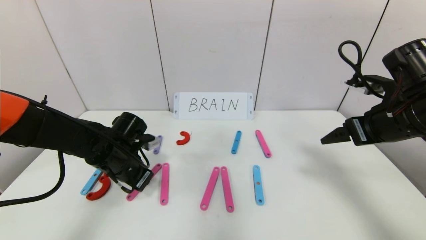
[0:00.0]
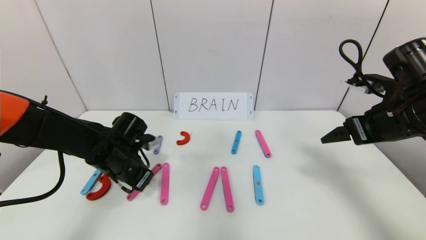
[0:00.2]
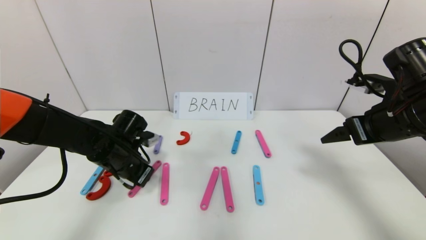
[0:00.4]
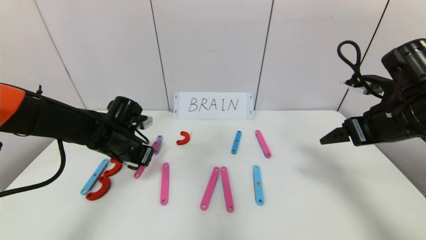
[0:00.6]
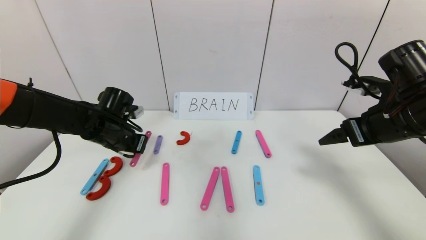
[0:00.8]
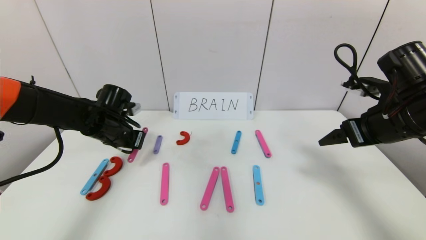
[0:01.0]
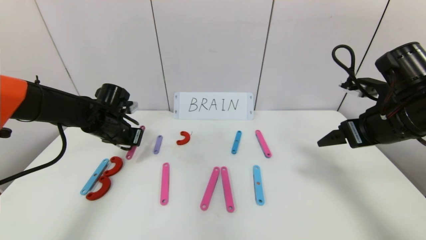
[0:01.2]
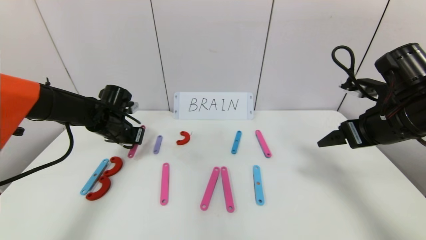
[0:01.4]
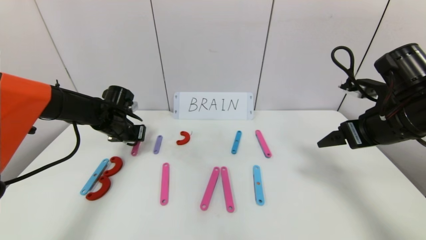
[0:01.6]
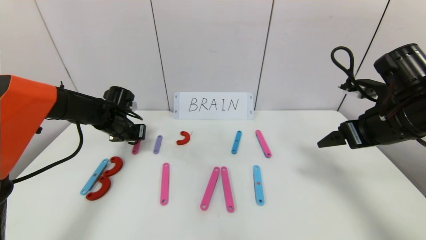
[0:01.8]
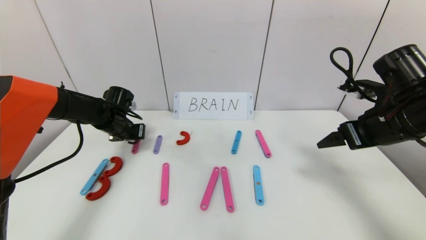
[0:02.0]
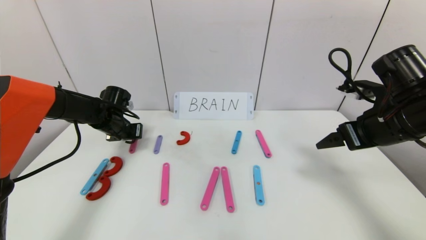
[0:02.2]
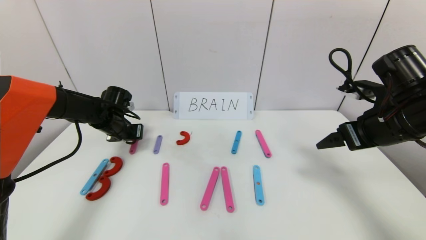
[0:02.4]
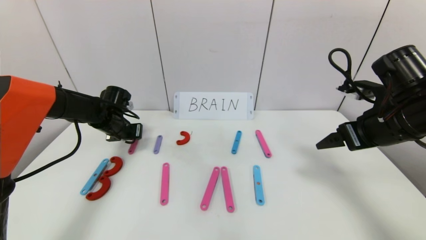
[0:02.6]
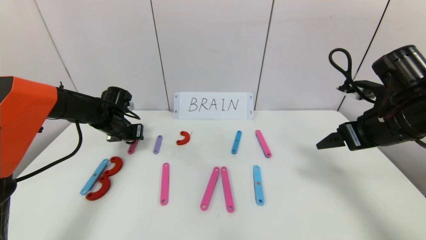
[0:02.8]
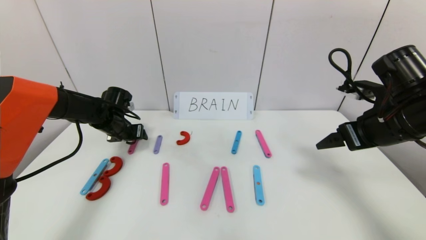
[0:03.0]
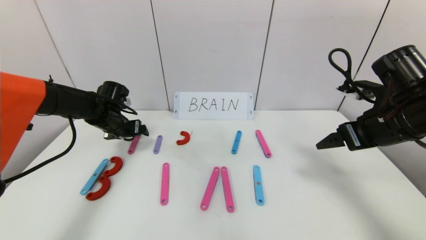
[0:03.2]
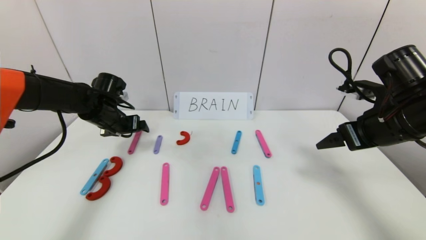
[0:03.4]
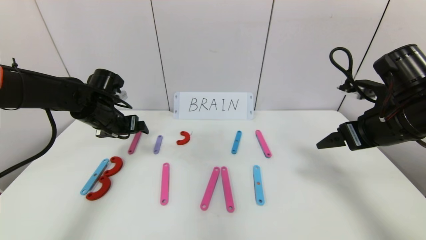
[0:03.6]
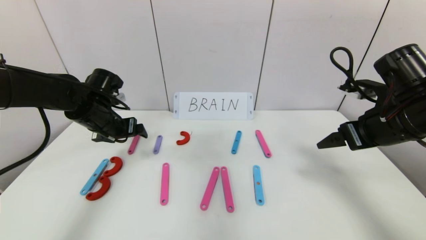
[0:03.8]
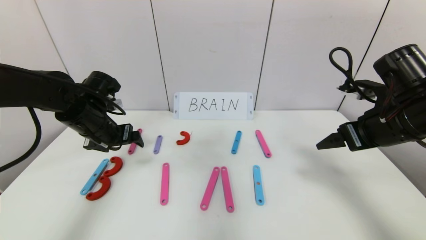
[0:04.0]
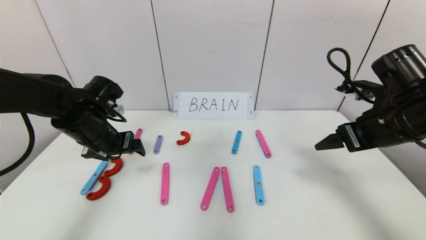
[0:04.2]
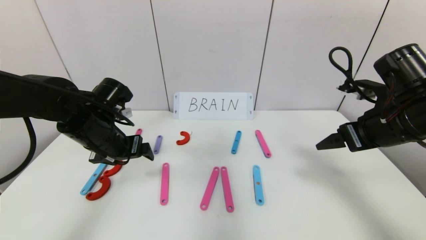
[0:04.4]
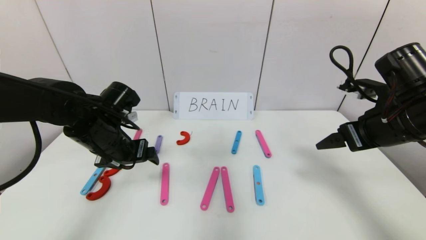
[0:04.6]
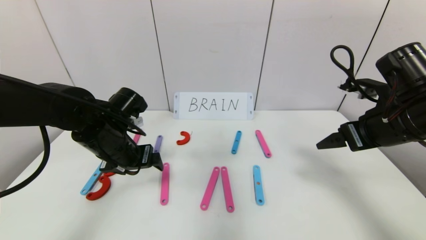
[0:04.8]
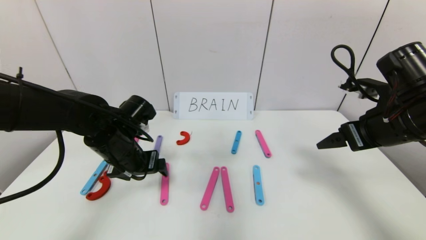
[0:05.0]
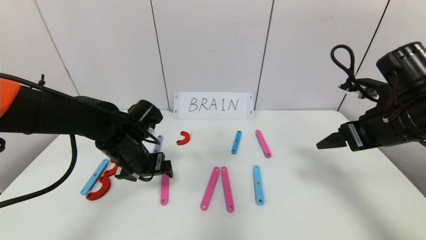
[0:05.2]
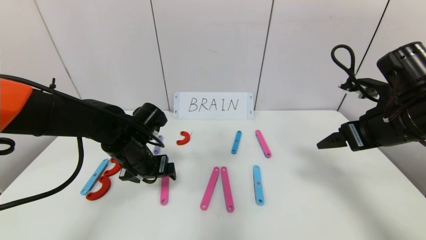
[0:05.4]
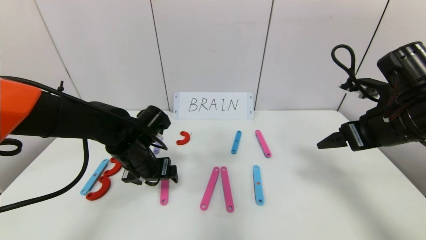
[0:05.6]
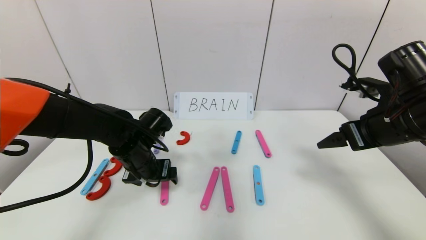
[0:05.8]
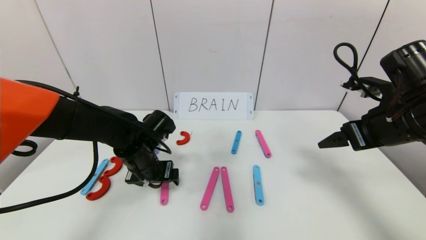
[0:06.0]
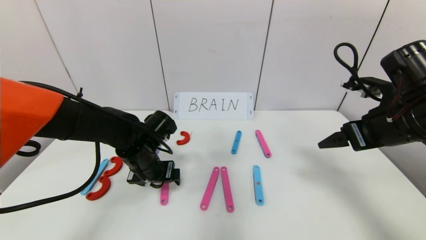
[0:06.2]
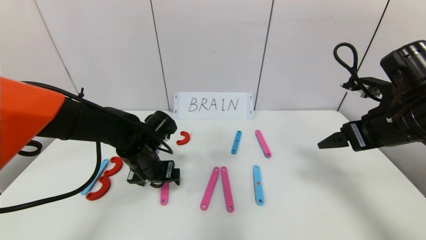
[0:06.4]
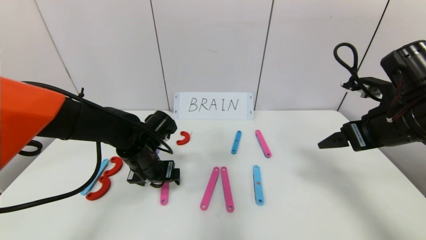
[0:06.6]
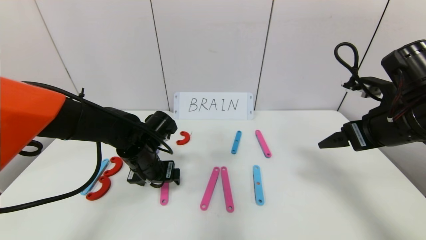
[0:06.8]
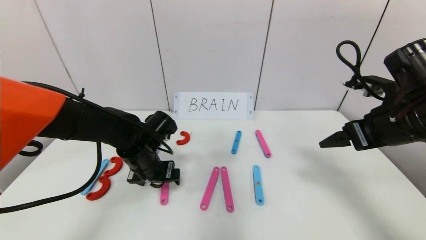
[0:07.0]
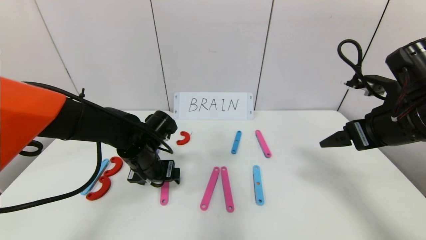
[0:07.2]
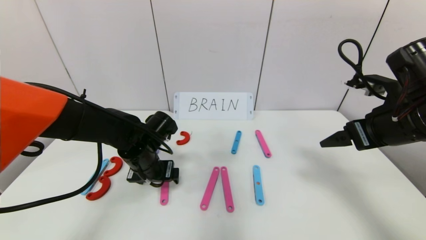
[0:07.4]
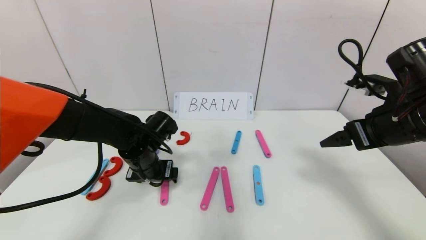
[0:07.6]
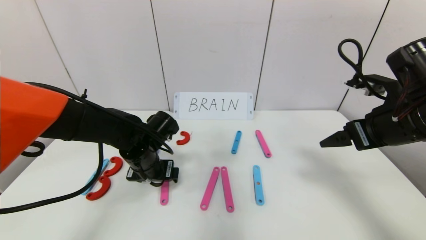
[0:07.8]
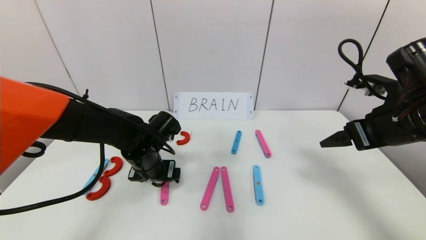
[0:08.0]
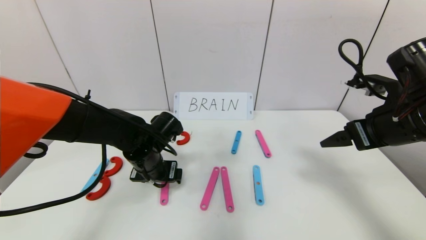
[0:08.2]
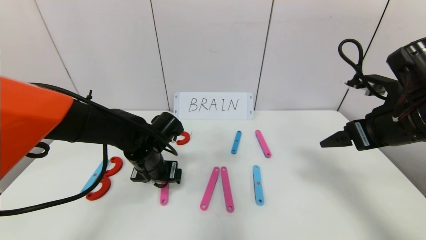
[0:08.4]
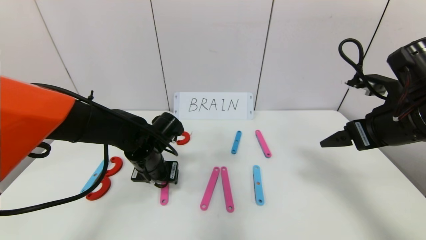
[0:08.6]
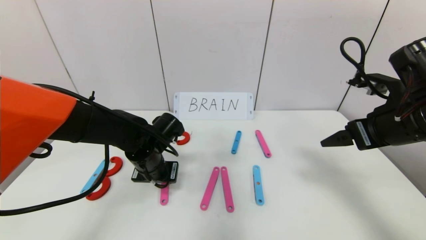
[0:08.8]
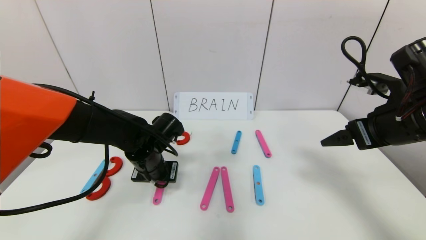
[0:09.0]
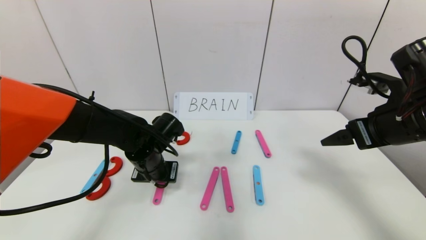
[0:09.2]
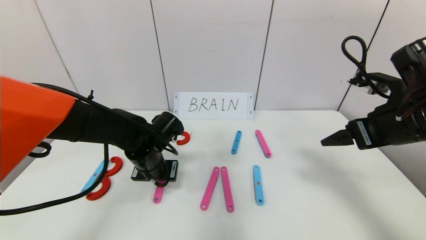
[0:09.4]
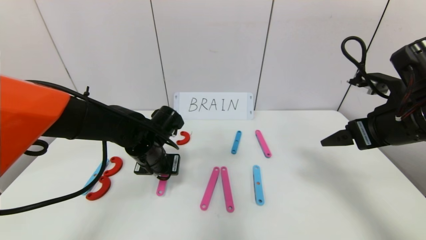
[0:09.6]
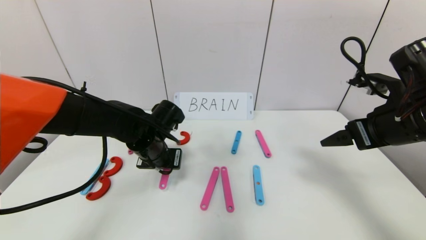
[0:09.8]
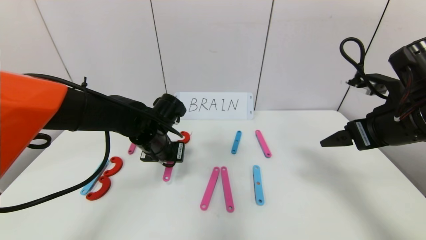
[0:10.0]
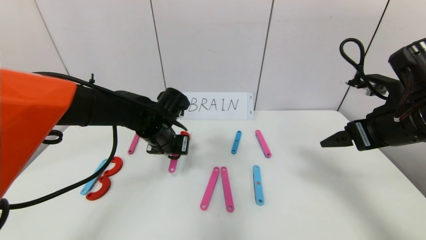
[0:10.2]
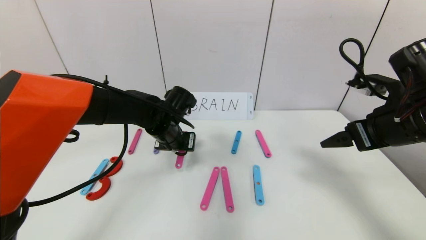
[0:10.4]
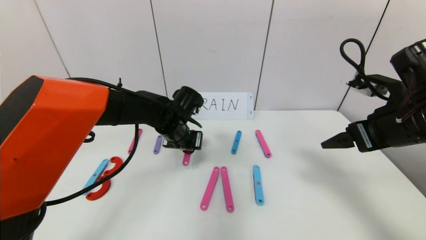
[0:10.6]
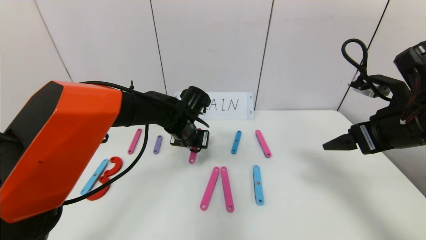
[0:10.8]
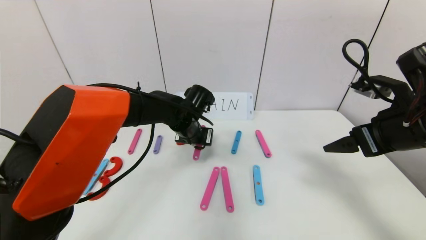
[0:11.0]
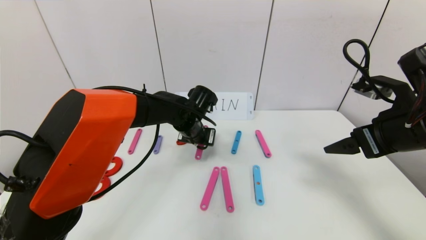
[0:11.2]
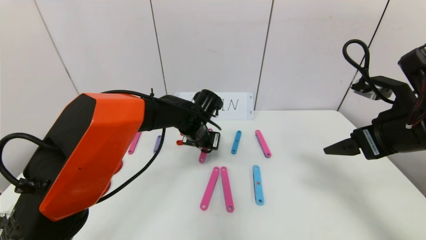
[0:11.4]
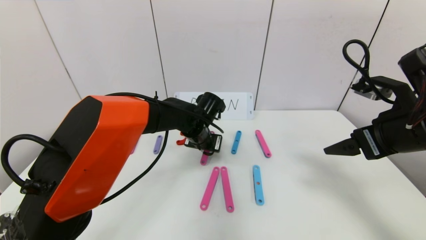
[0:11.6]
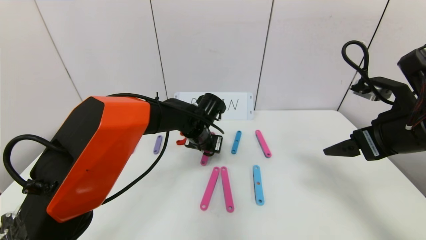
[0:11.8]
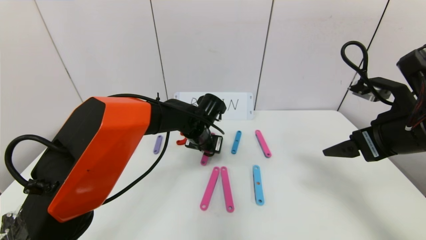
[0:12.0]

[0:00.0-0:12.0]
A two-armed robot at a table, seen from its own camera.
Task of the whole recording: rearrange the word baai as brain.
0:00.0 to 0:01.6: The left gripper shifts roughly 10 cm forward and to the left.
0:01.6 to 0:03.0: The left gripper opens up.
0:03.0 to 0:04.4: The left gripper moves backward, upward and to the right, roughly 15 cm.
0:04.4 to 0:06.0: The left gripper shifts some 10 cm downward and to the right.
0:06.0 to 0:07.6: Both grippers stay about where they are.
0:07.6 to 0:09.0: The left gripper closes its fingers.
0:09.0 to 0:10.4: The left gripper shifts approximately 5 cm forward.
0:10.4 to 0:12.0: The left gripper goes some 5 cm to the right.

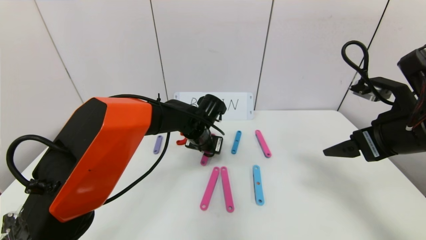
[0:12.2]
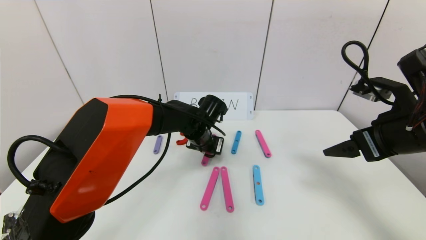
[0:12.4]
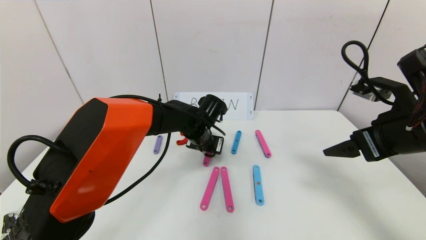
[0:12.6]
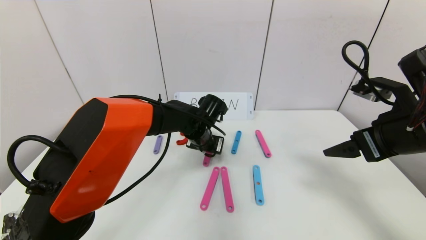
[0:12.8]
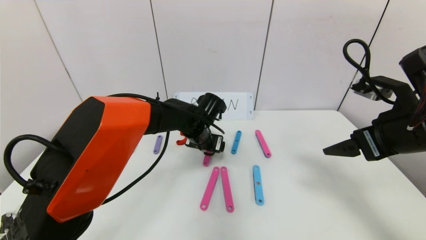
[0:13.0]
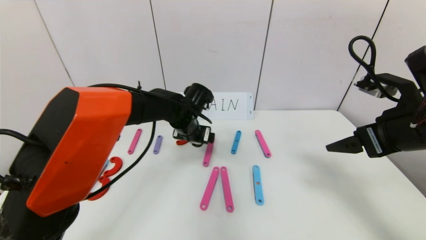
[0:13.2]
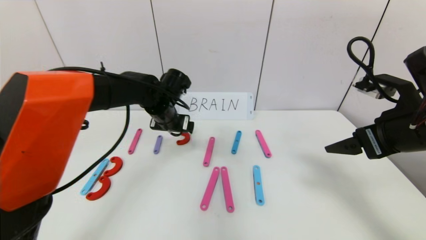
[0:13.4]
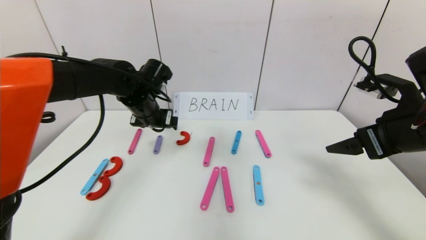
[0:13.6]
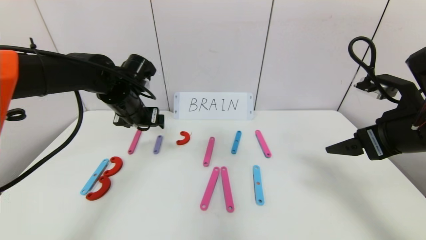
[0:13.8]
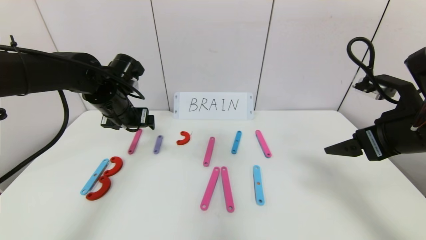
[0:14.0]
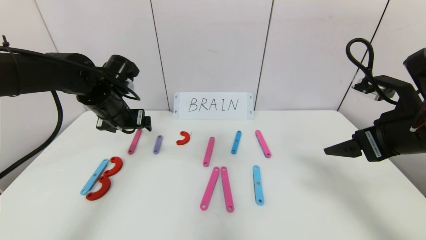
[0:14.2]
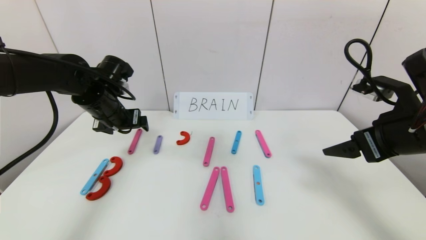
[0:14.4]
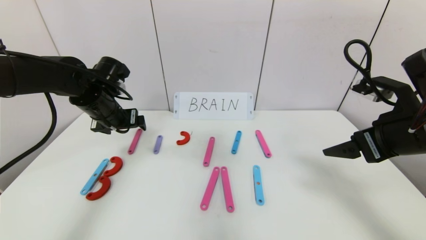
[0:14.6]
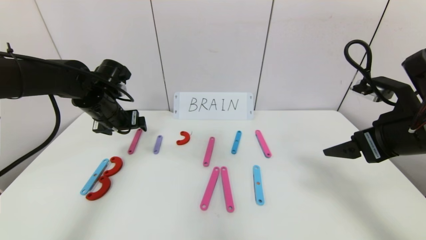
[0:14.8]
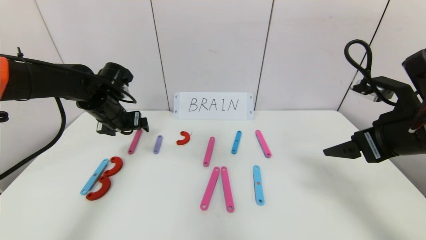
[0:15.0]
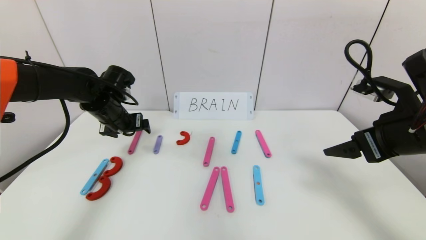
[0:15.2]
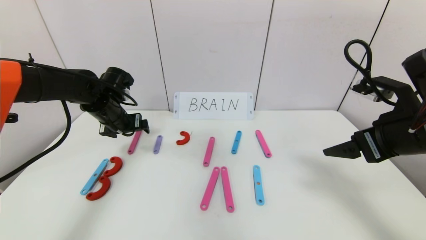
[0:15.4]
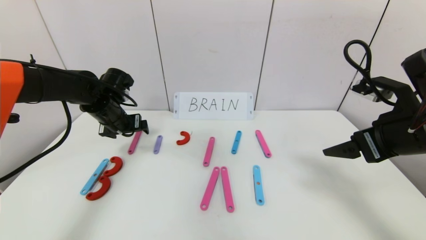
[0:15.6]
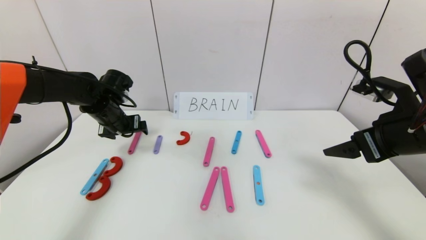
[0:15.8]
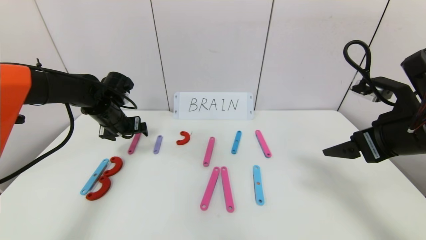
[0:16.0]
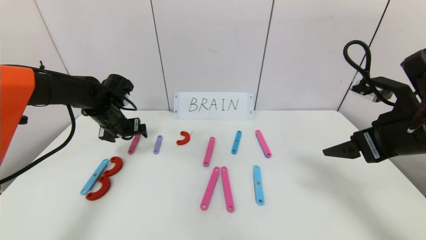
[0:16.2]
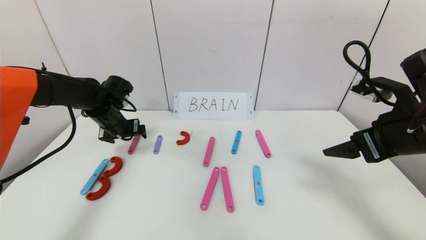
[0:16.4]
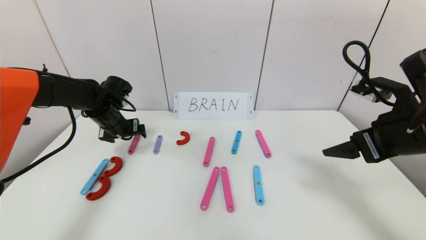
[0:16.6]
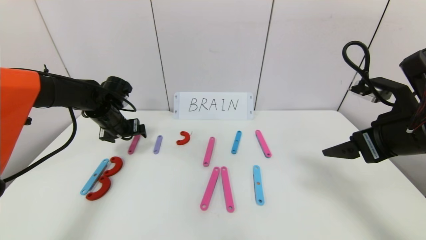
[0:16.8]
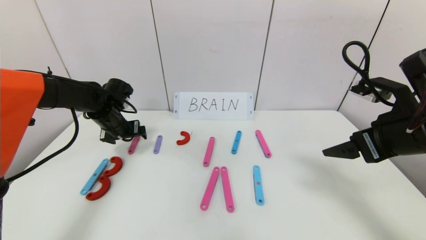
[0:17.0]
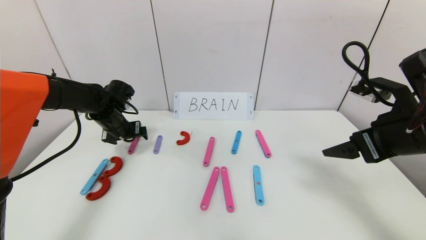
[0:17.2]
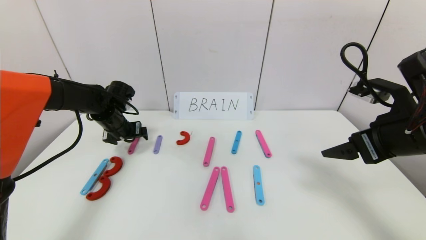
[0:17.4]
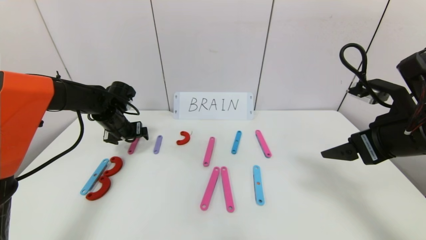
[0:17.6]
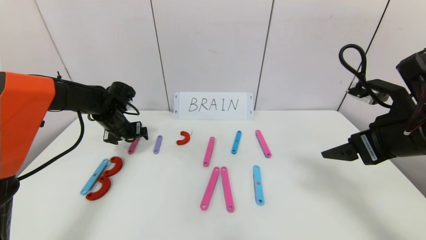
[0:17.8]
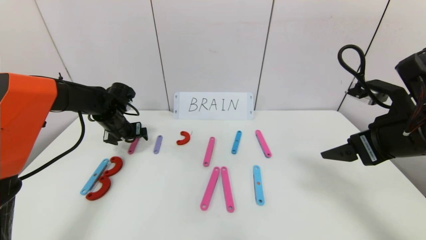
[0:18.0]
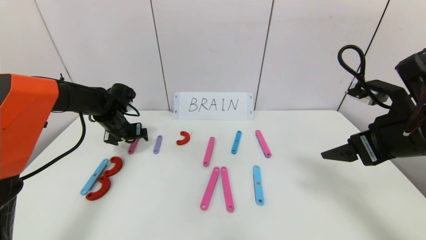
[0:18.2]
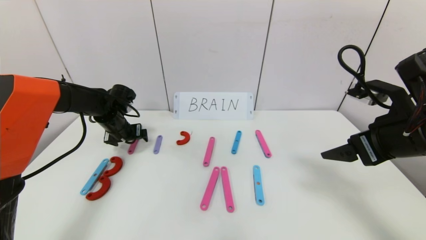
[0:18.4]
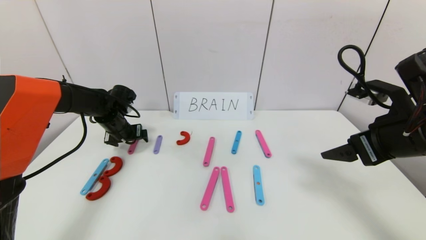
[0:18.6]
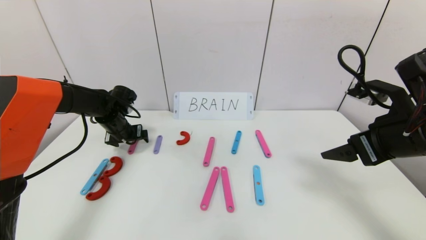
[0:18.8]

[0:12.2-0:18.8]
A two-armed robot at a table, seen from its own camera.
Task of the whole recording: rearrange the word baai as brain.
0:12.2 to 0:13.8: The left gripper is displaced to the left and upward by some 20 cm, and opens.
0:13.8 to 0:15.4: The left gripper travels to the left by about 5 cm.
0:15.4 to 0:17.2: The left gripper changes place by approximately 5 cm.
0:17.2 to 0:18.8: There are only small adjustments of the grippers.
